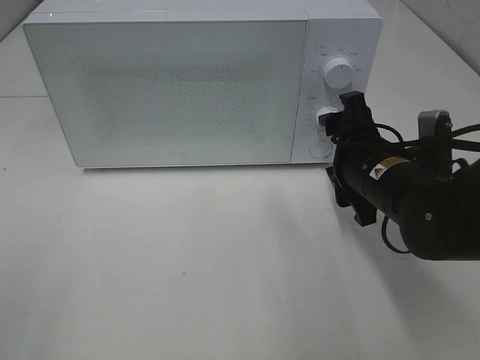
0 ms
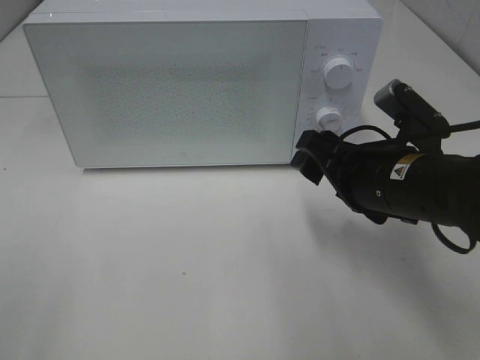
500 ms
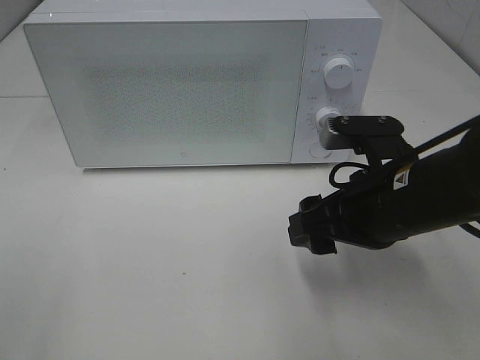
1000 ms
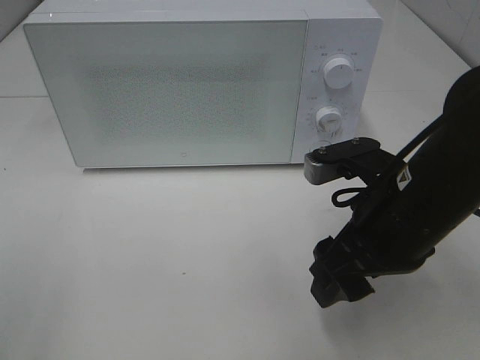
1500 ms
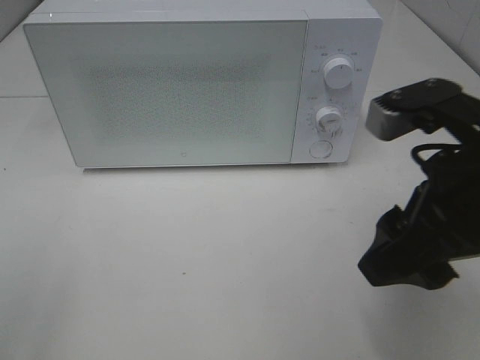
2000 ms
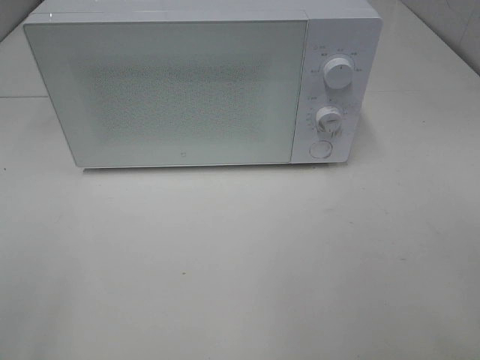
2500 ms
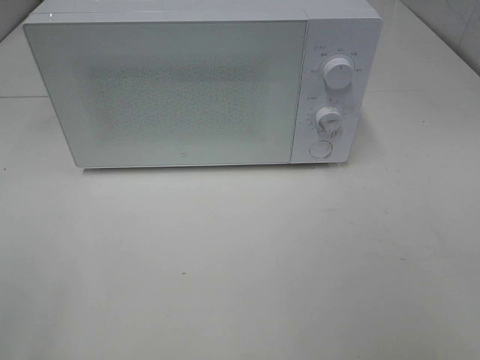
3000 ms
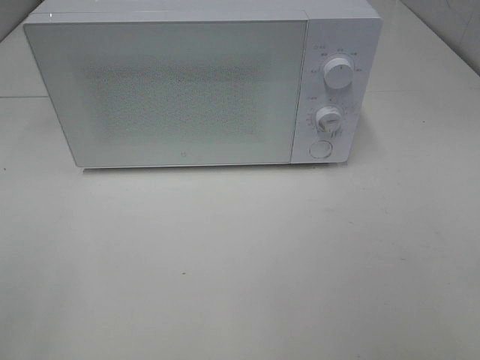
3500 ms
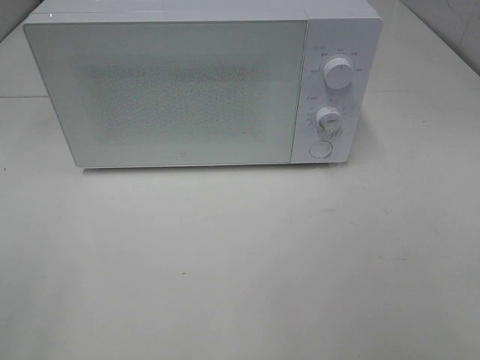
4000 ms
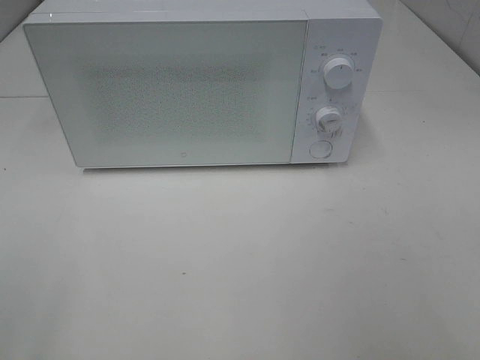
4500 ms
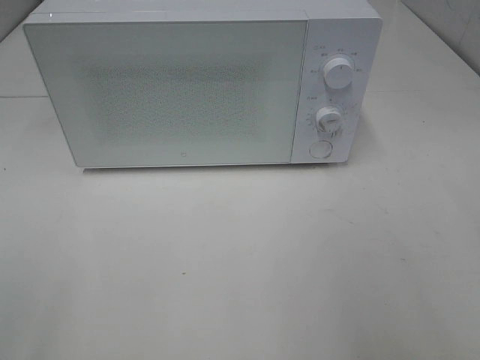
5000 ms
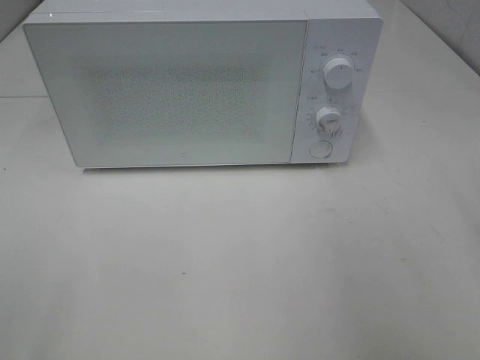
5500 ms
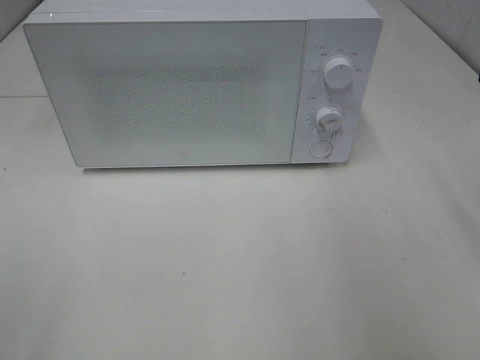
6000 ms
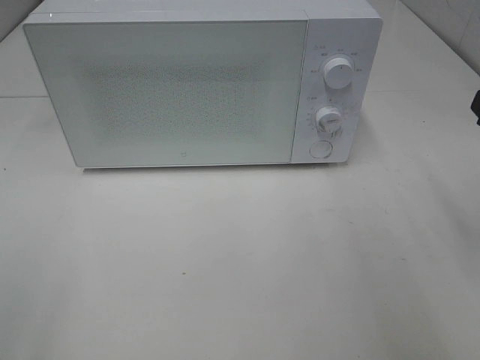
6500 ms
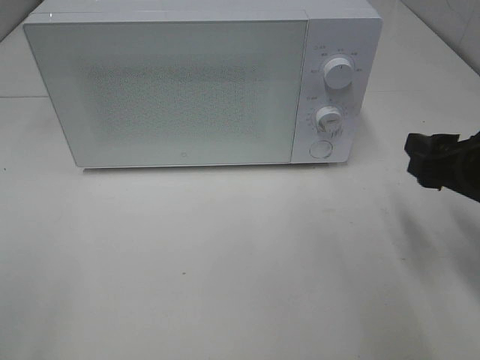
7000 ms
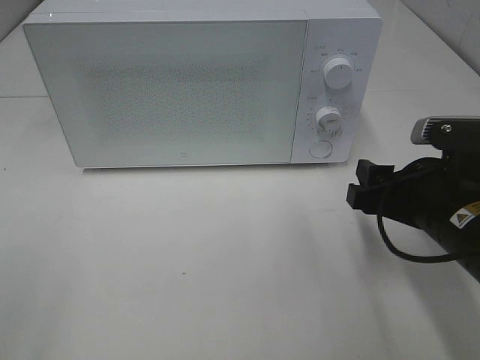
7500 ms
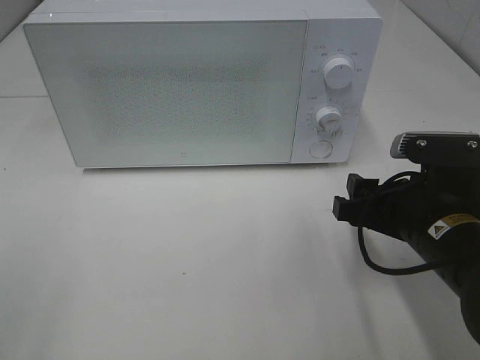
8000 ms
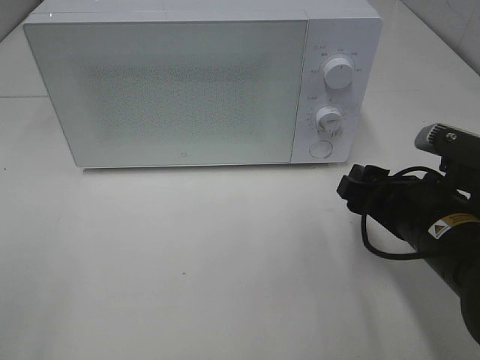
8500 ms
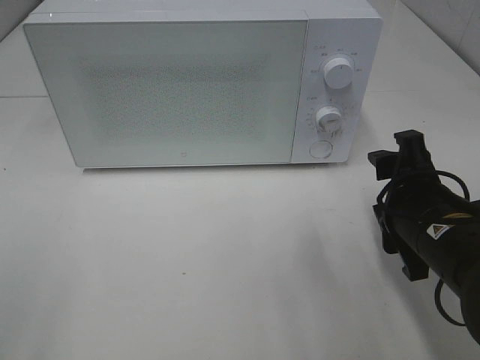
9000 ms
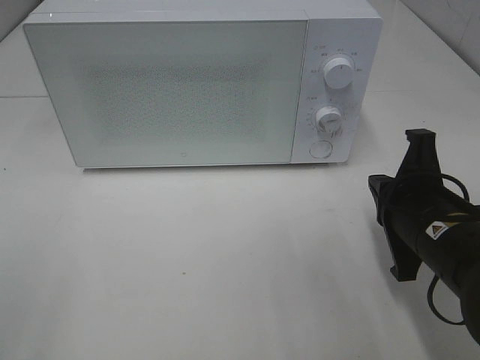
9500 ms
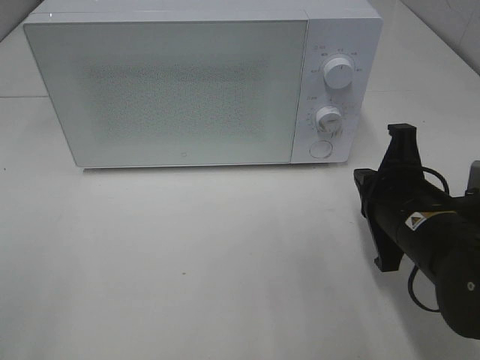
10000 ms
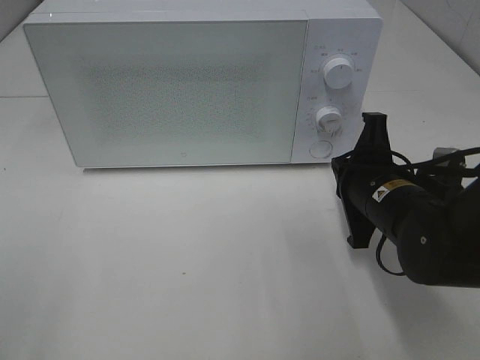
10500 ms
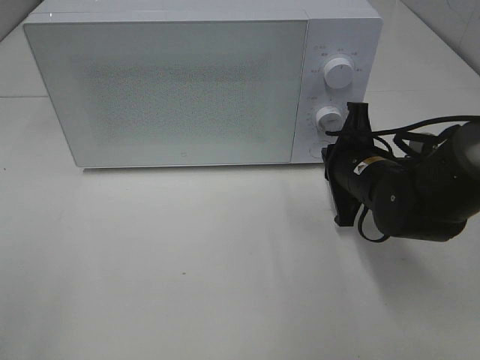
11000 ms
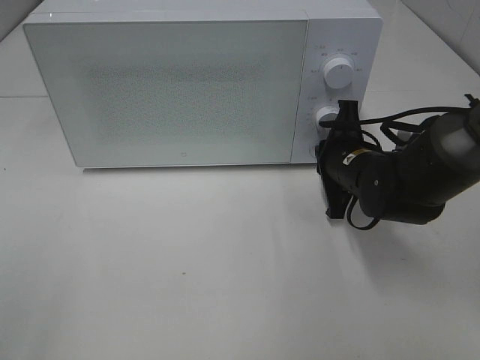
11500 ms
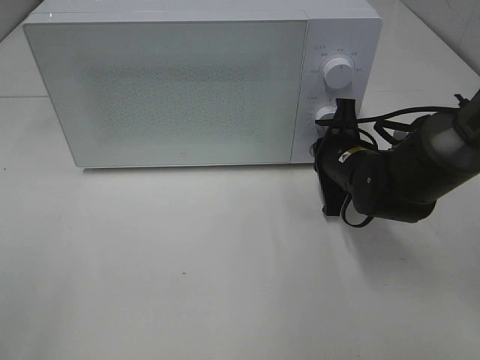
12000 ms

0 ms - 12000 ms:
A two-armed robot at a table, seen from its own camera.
Task of the whole recording: Heat Sandwich.
0 ms - 2000 ms: The right gripper shifts approximately 15 cm upward and backward.
2000 ms - 4000 ms: The right gripper shifts some 20 cm backward and to the right.
6000 ms - 8000 ms: The right gripper moves downward and to the left, roughly 20 cm.
8000 ms - 10000 ms: The right gripper closes.
10000 ms - 12000 ms: The right gripper heads forward, covering some 15 cm.

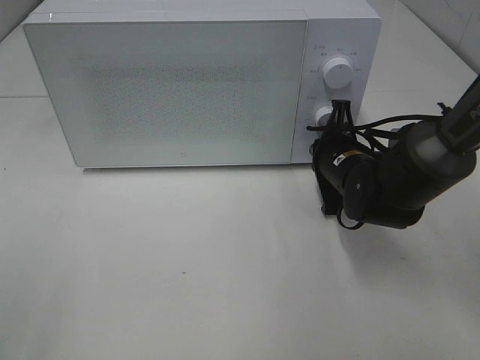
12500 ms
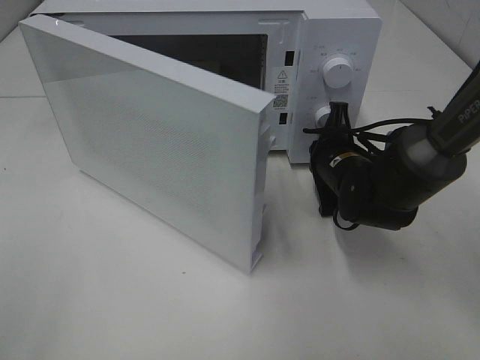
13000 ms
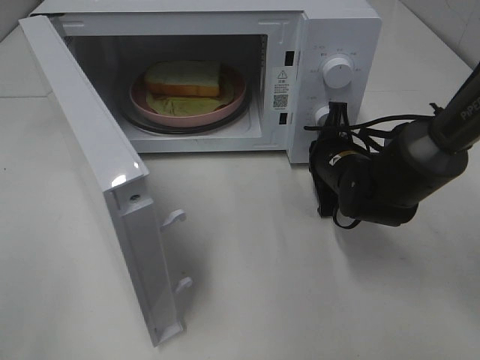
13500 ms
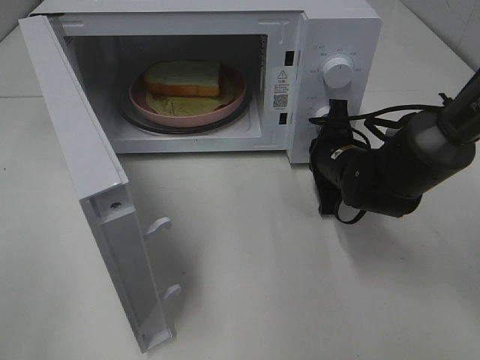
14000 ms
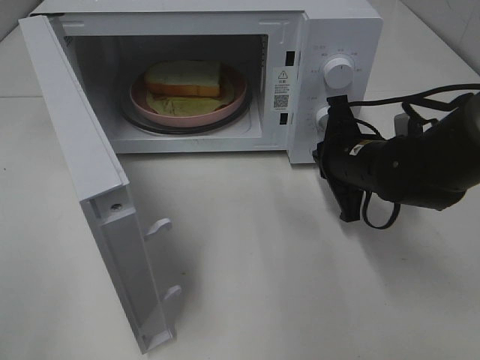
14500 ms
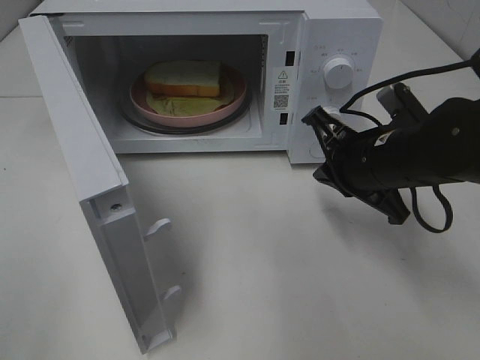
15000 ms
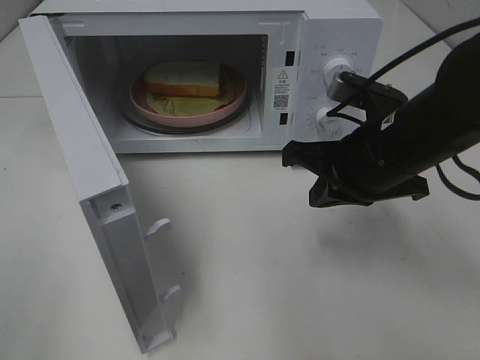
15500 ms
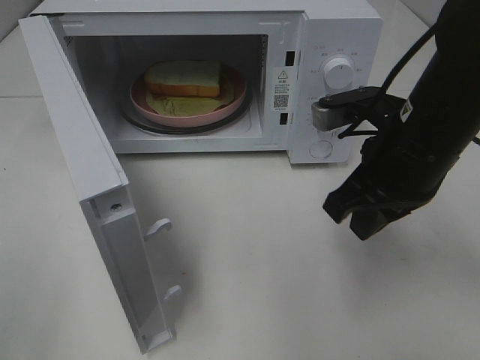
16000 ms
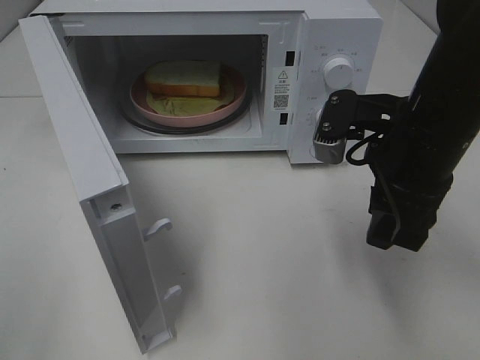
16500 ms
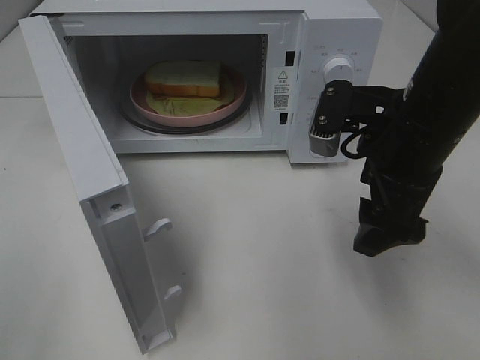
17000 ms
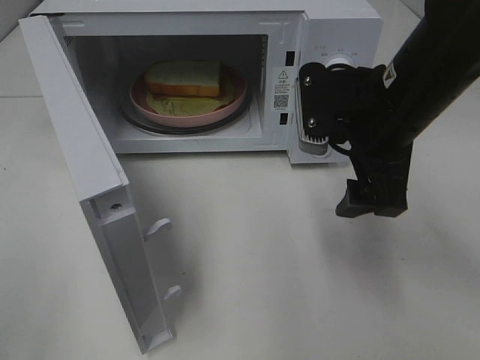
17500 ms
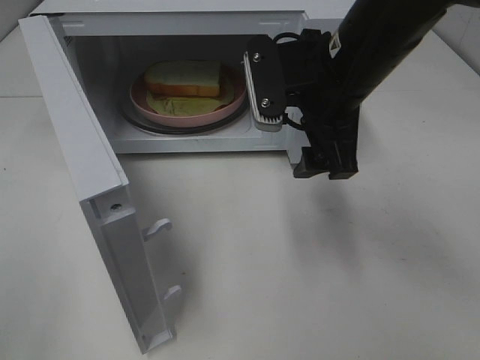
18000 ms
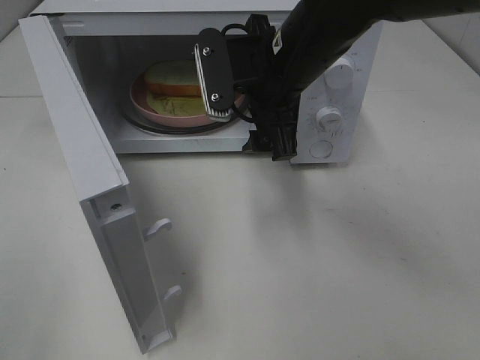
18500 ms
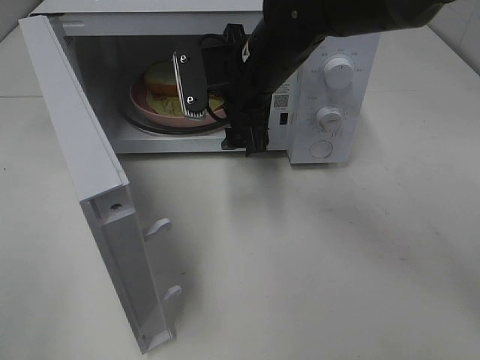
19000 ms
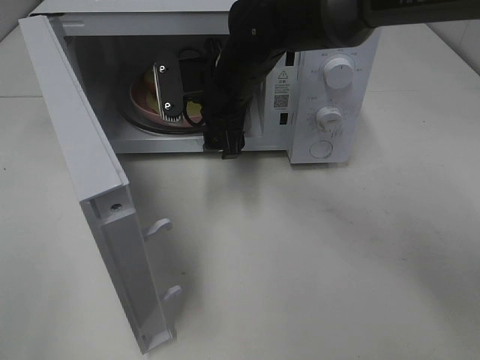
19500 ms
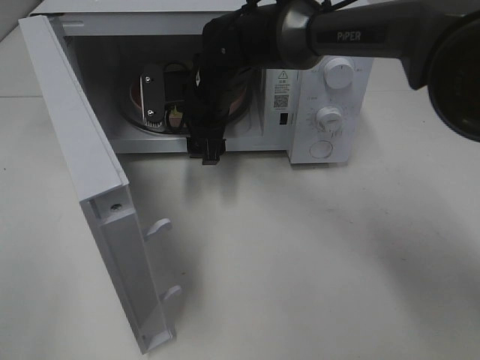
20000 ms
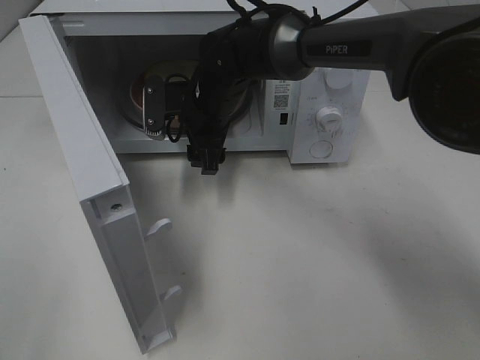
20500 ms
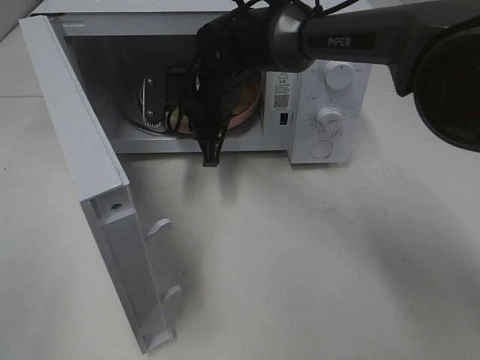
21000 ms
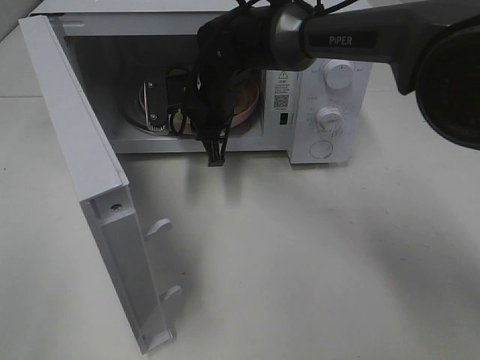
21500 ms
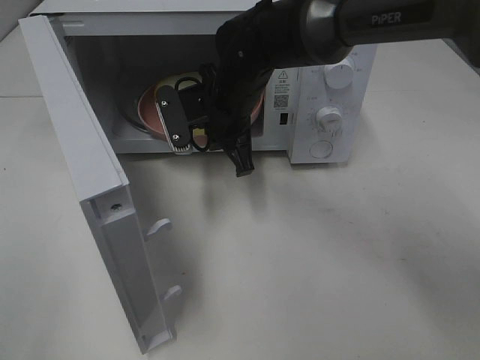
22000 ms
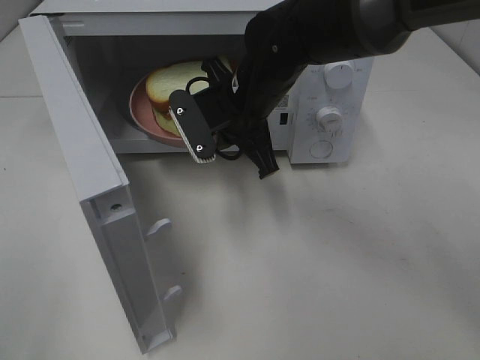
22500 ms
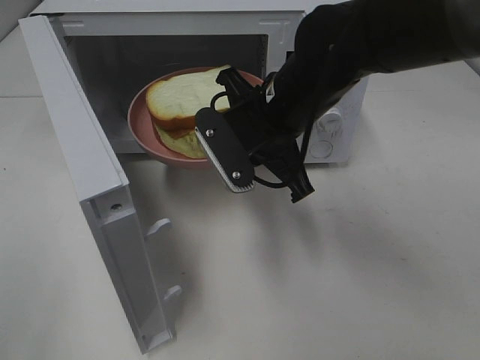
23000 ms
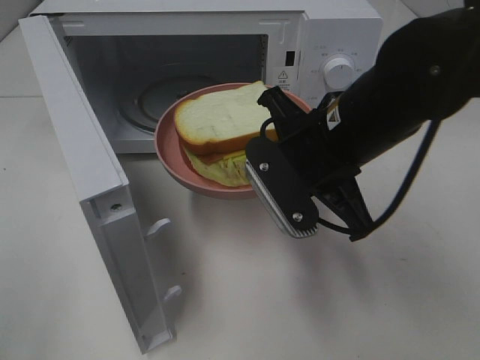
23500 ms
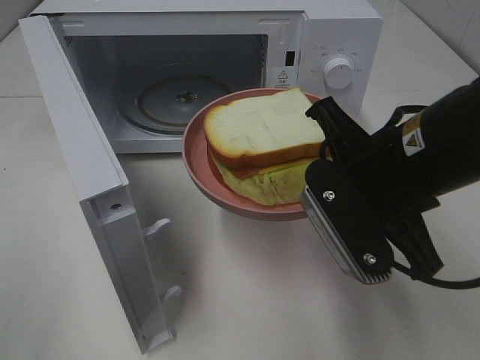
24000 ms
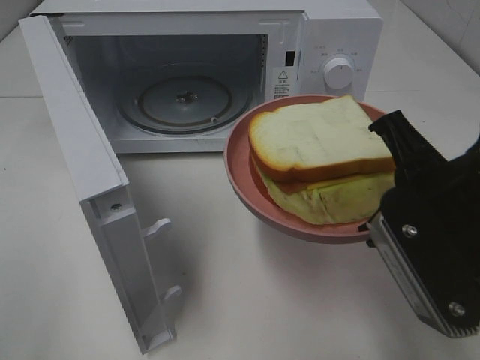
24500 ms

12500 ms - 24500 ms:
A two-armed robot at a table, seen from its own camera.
Task of the whole recording: Heat Sandwich.
Step, 12500 ms - 14500 ms: Right hand: press the switch.
Step, 15000 ms - 21000 ms: Right hand: grab the plate with the sandwich.
14500 ms - 16500 ms: The right gripper goes some 15 cm upward and backward, and opens up.
16500 ms - 18500 ms: The right gripper shifts roughly 15 cm to the left and forward, and opens its fingers.
18500 ms - 20500 ms: The right gripper shifts about 15 cm downward, forward and to the left.
20500 ms - 22500 ms: The right gripper moves backward, some 5 cm, and closes its fingers.
22500 ms - 24500 ms: The right gripper moves backward and to the right, approximately 25 cm.

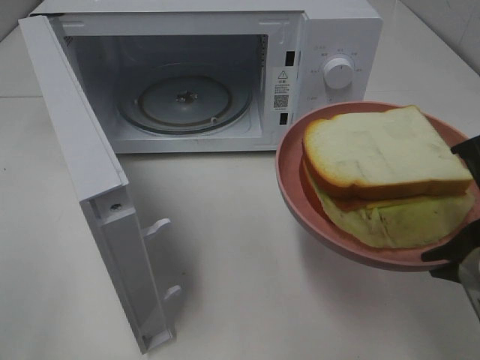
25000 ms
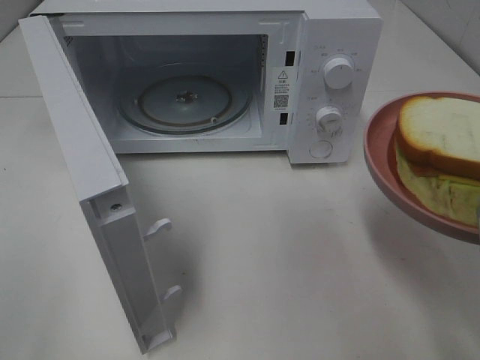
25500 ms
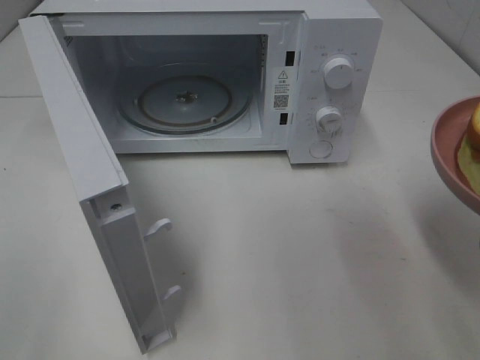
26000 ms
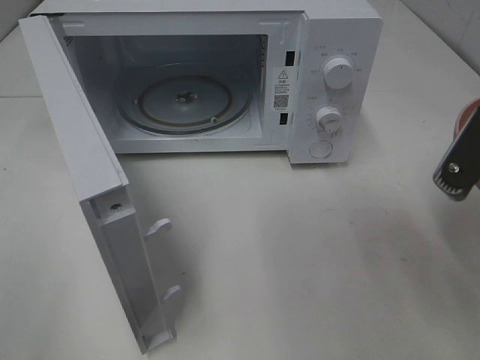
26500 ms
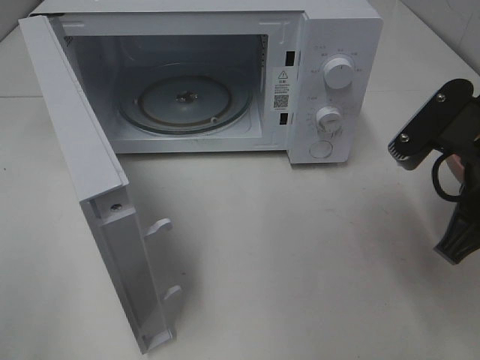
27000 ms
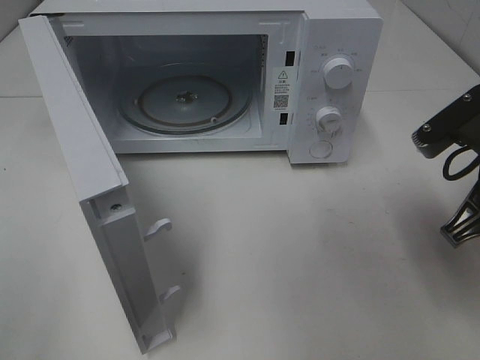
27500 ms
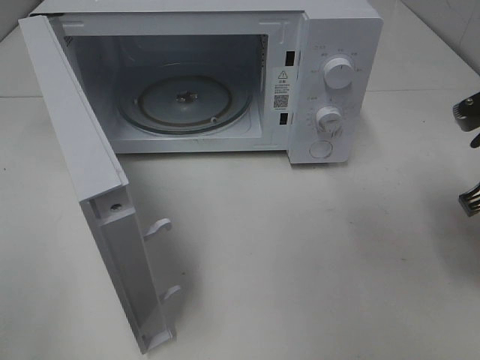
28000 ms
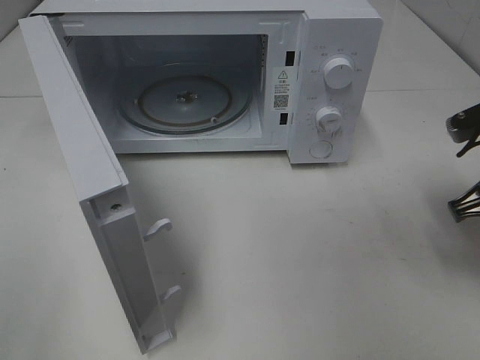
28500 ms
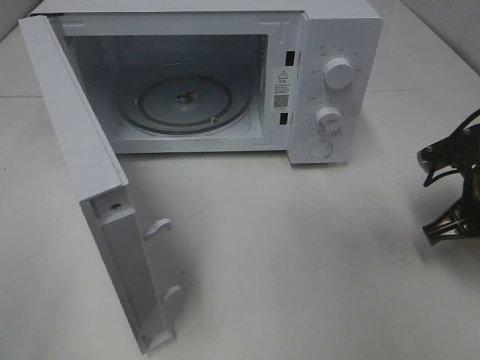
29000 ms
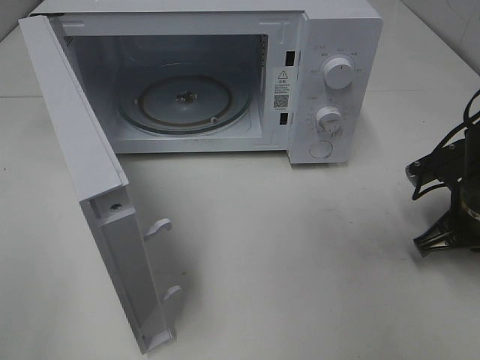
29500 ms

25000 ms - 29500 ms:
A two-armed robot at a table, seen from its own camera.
Task of the whole recording: Heat Sandwich.
25000 ms - 27000 ms: The right gripper travels forward by about 5 cm.
27000 ms - 29500 ms: The right gripper moves downward, forward and to the right, some 15 cm.
